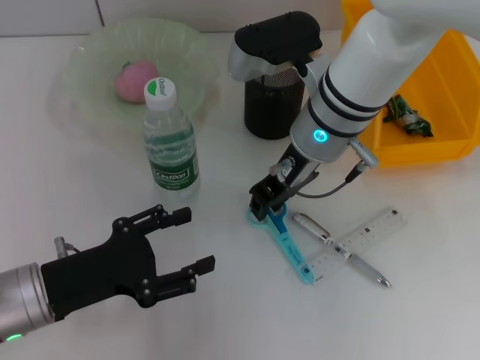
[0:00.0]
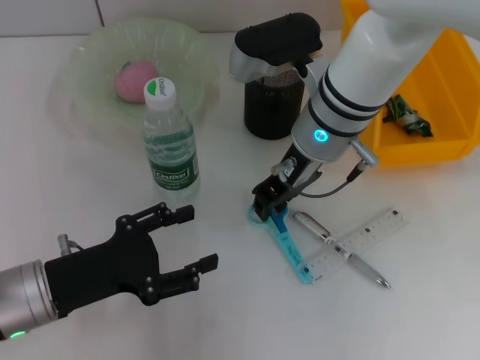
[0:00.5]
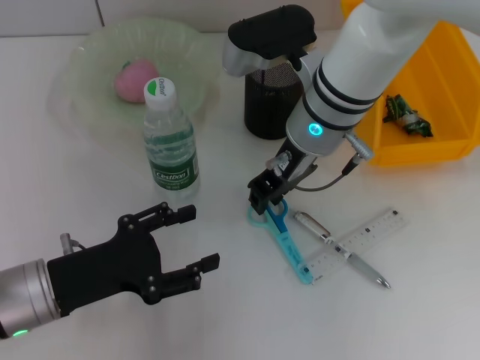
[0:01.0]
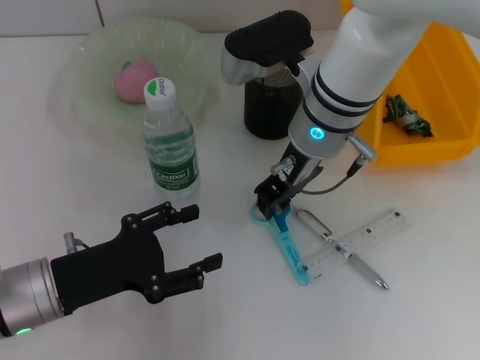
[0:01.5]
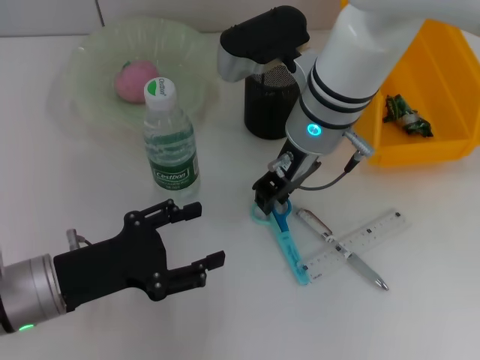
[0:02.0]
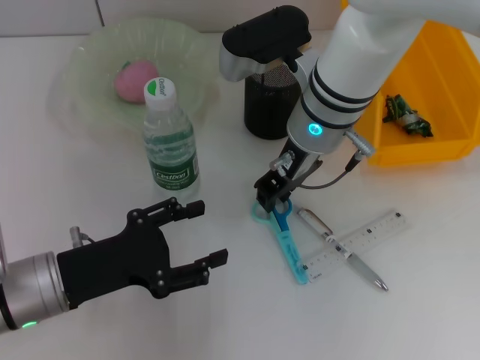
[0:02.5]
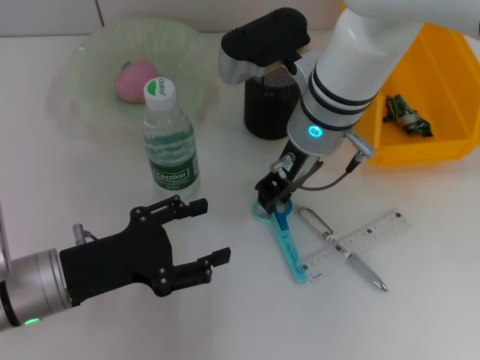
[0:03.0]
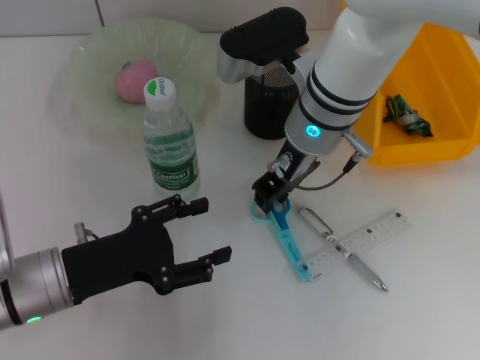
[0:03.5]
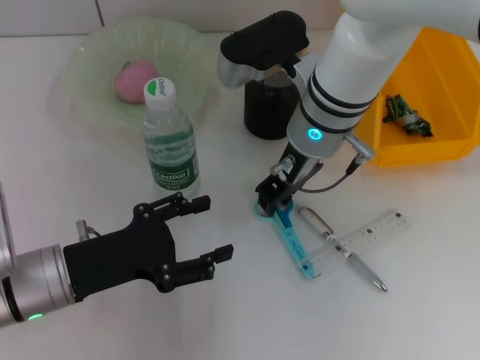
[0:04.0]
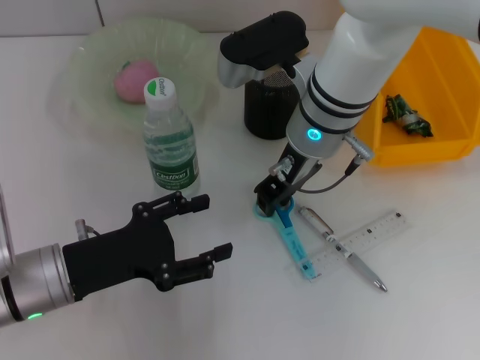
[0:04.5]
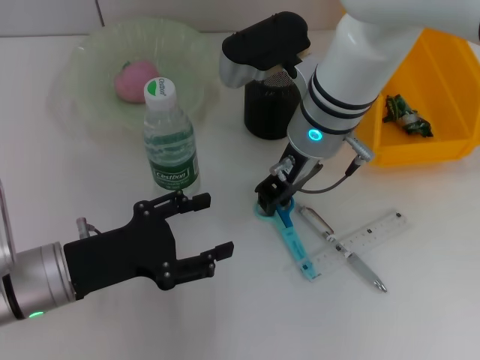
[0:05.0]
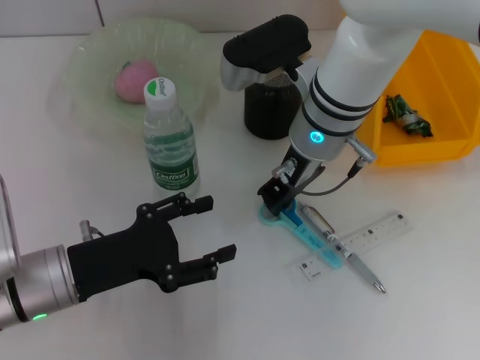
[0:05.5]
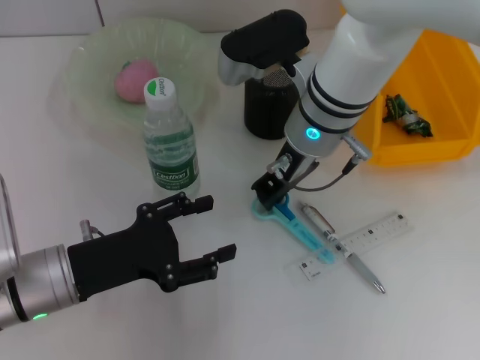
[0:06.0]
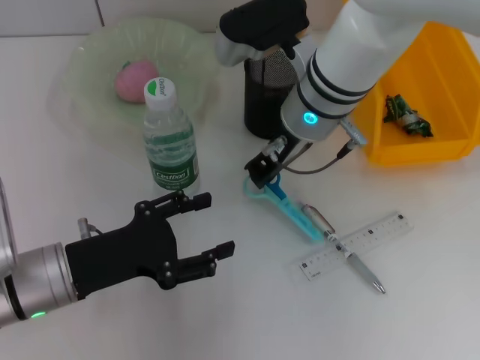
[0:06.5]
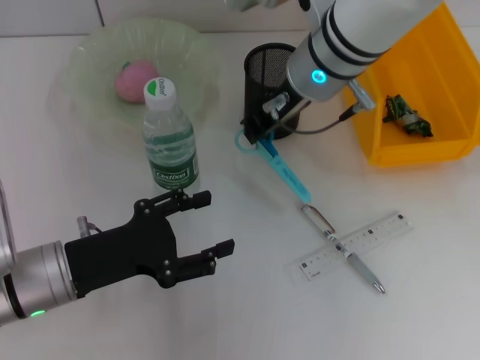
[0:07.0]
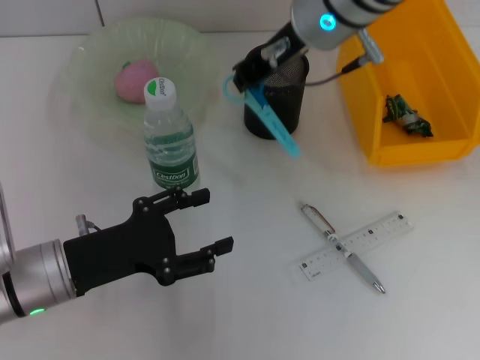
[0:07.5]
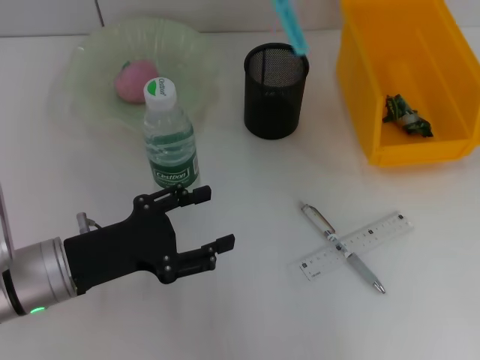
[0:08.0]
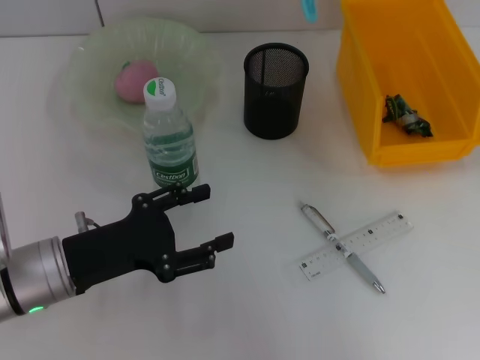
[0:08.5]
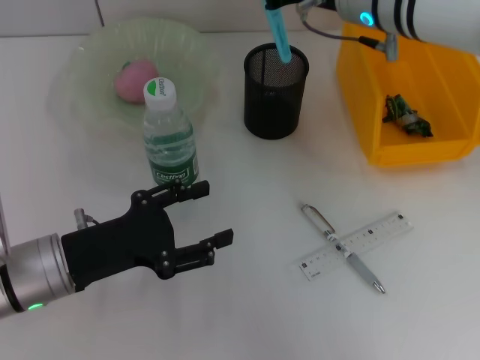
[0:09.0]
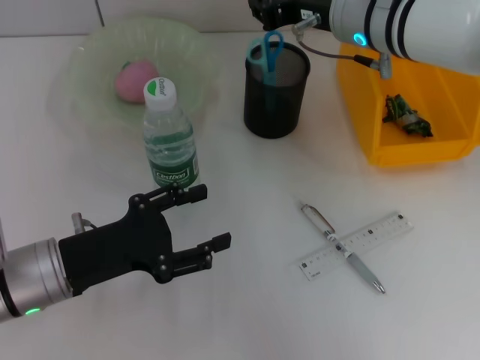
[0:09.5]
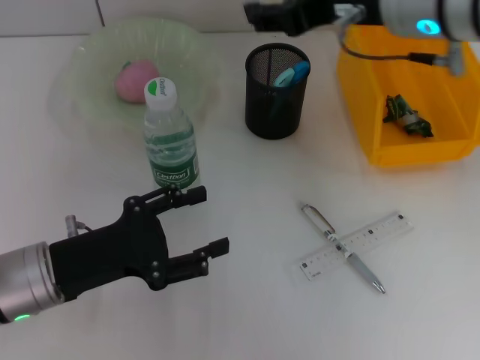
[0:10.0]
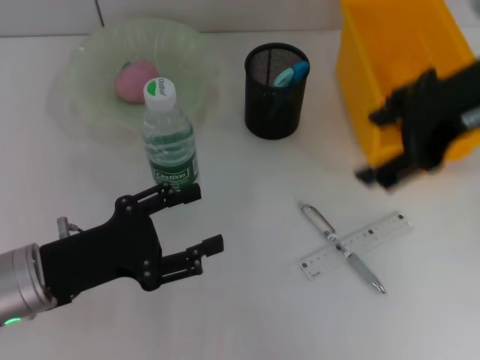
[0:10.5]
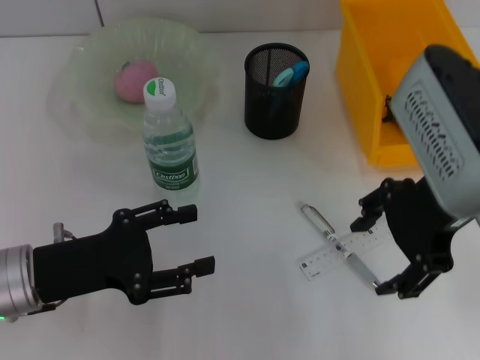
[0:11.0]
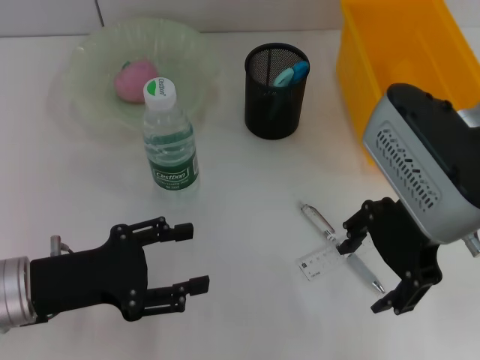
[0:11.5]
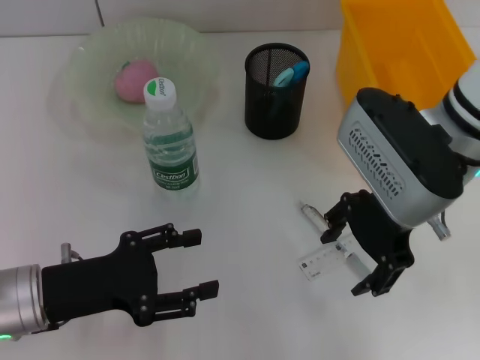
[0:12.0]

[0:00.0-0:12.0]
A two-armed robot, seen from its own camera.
Step, 0:00.0 to 0:05.5: Grab the blue utility knife with the right hand.
Step, 0:06.0 to 0:09.5: Place the blue utility knife into the pen holder with the right hand.
0:00.0 to 0:02.0: The grippers stay close to where they were, moving slightly.
0:02.0 to 0:06.0: Both grippers stay put.
0:06.0 to 0:08.0: The right gripper is displaced upward by roughly 15 cm.
0:08.0 to 0:10.0: The right gripper travels backward by about 5 cm, and opens up.
0:10.0 to 0:12.0: The right gripper travels downward by some 10 cm, and opens up.

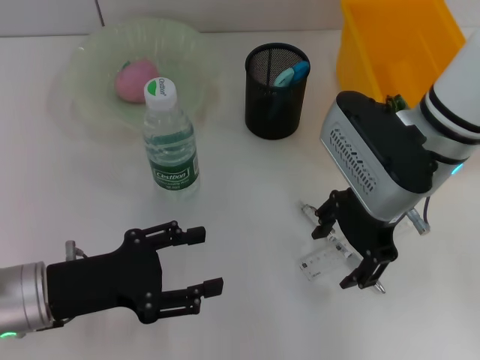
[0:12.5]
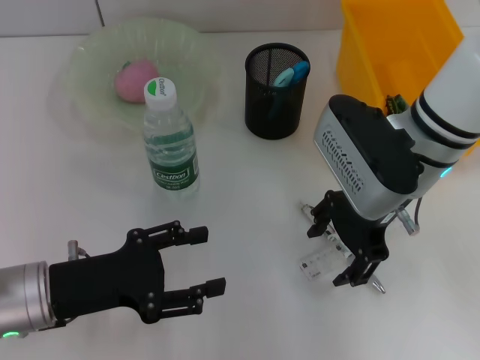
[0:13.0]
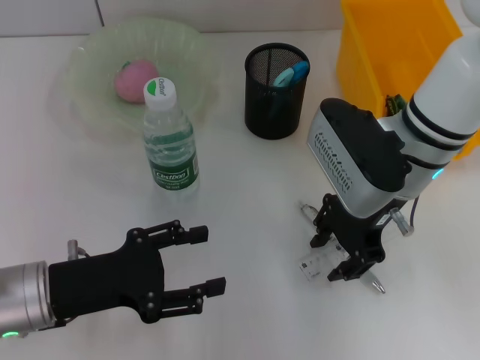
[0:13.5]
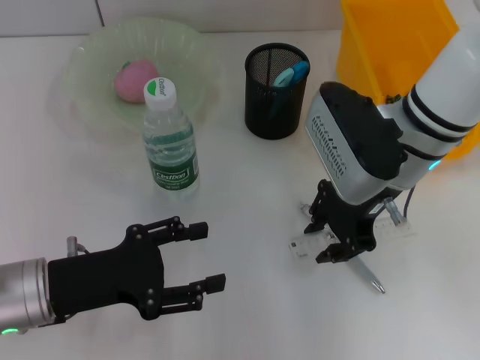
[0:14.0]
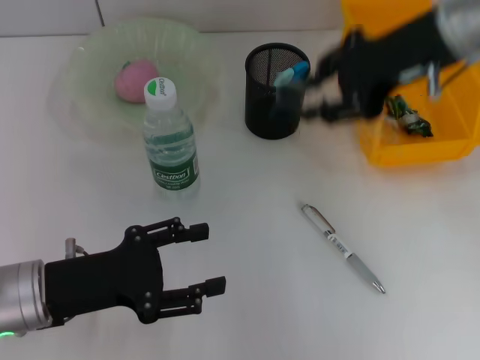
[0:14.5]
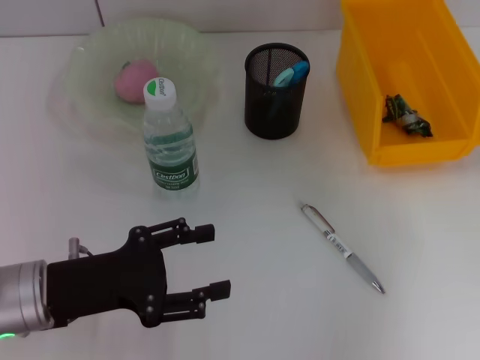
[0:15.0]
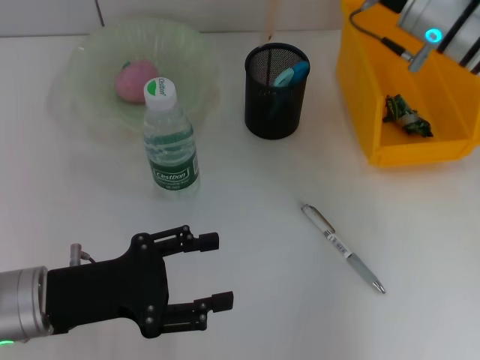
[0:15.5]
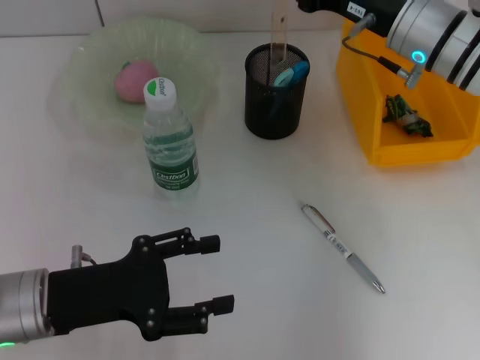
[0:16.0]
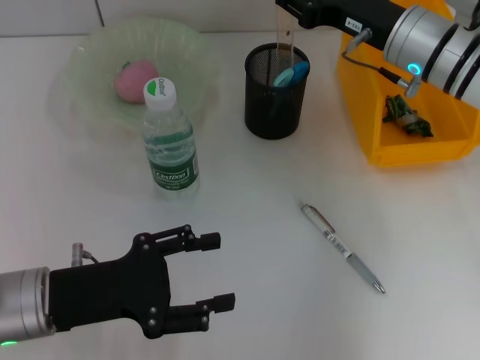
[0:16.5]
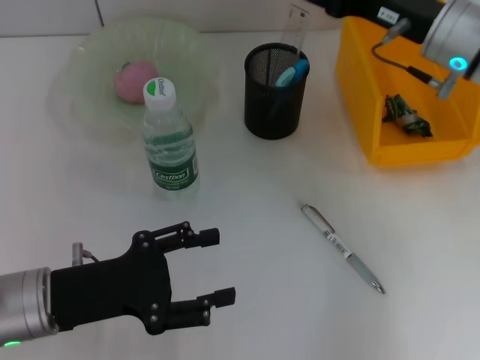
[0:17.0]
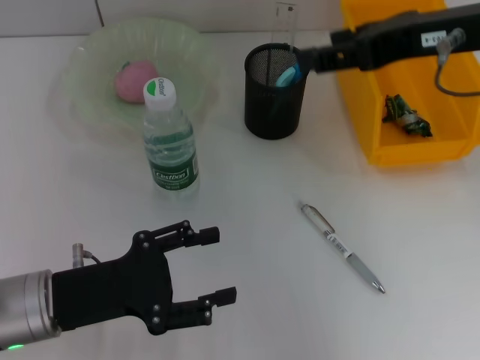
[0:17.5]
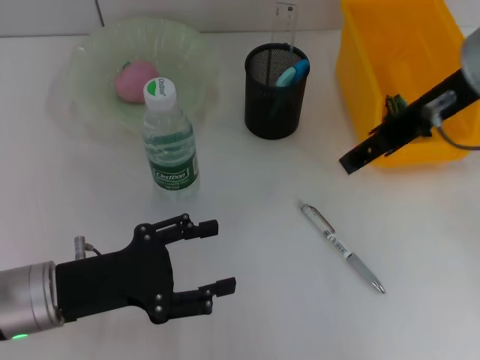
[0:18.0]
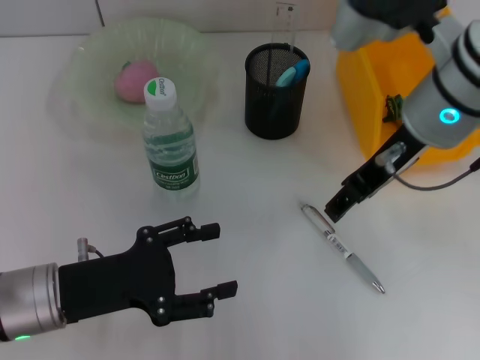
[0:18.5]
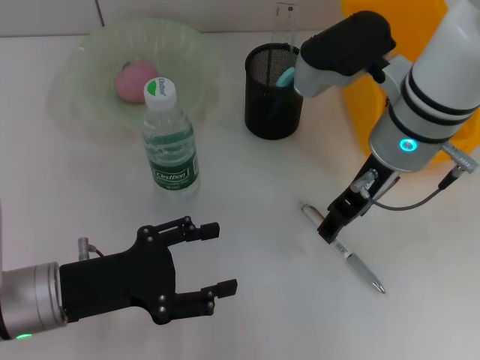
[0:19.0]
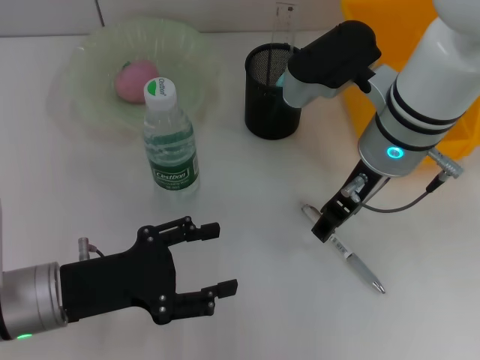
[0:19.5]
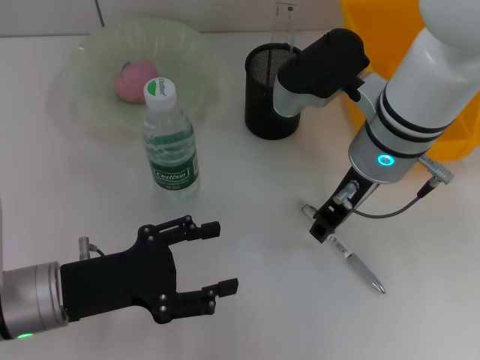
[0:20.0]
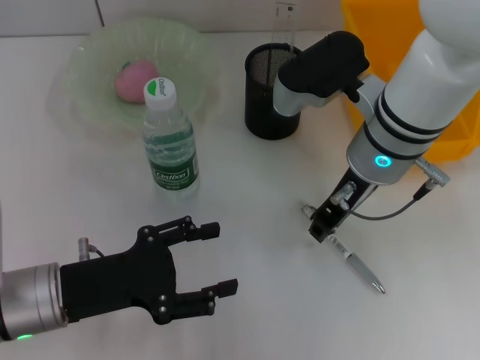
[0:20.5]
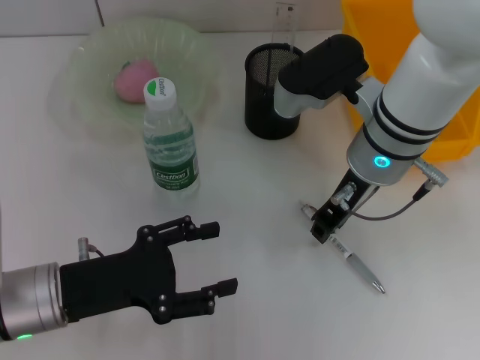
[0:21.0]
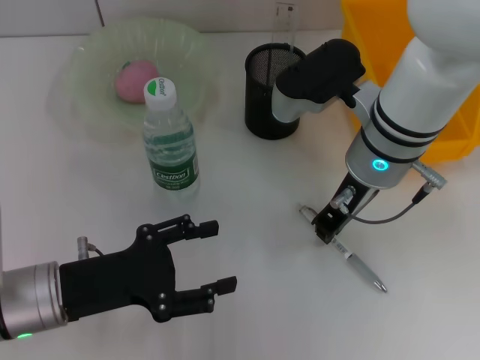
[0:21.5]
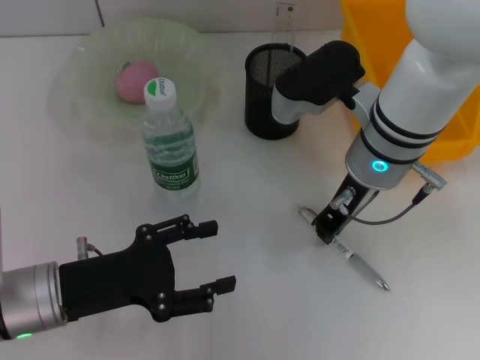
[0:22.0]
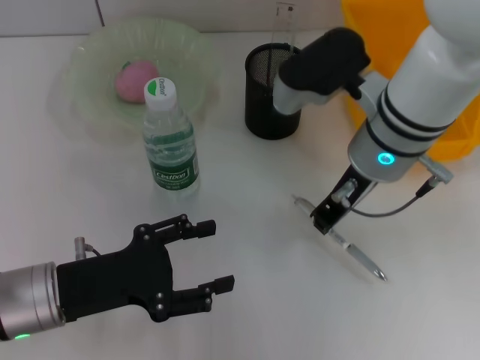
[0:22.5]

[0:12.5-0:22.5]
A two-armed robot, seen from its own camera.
Step, 0:14.0 to 0:16.5: Place the ruler into the pen holder with the right hand.
Step, 0:17.5 to 0:21.5: Grab the gray spring-action pen with the right hand.
0:12.5 to 0:14.5: The right gripper is displaced upward by approximately 10 cm, and closes.
0:14.5 to 0:16.5: The right gripper heads downward, covering roughly 10 cm.
0:16.5 to 0:18.5: The right gripper goes about 10 cm upward and backward, and opens.
0:18.5 to 0:20.5: The right gripper heads downward, covering about 5 cm, and closes up.
0:20.5 to 0:22.5: Both grippers stay about where they are.

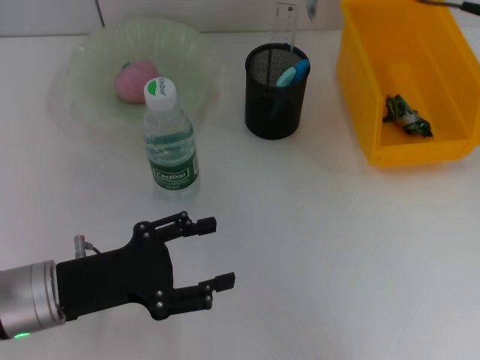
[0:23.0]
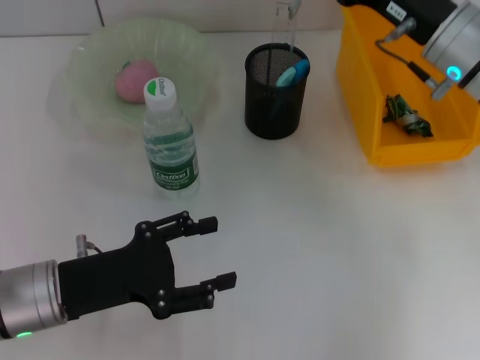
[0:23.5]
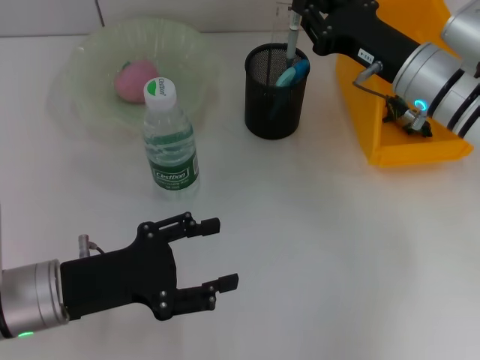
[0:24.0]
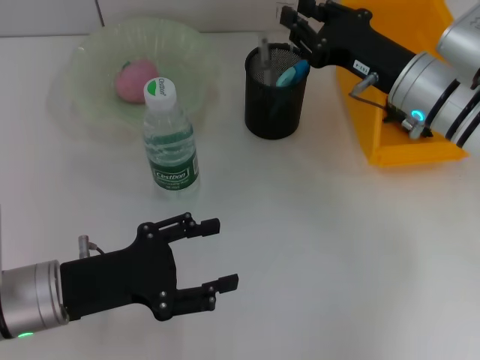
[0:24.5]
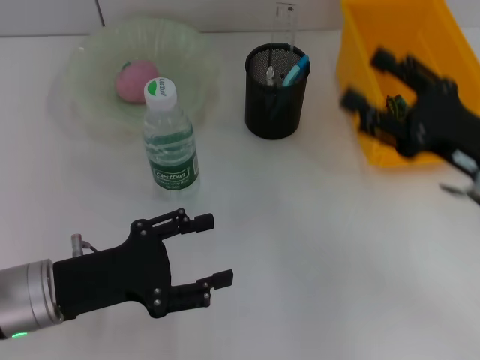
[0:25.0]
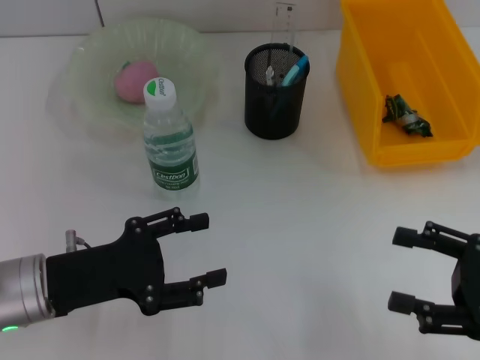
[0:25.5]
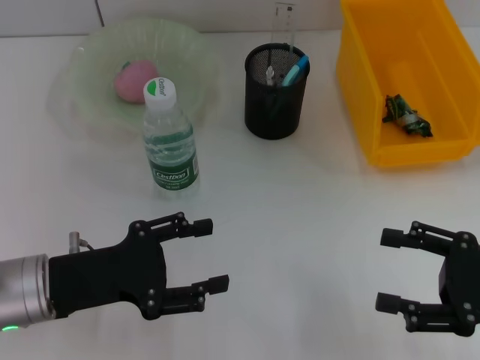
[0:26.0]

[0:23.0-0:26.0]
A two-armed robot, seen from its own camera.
Step, 0:23.0 to 0:24.5: Place the gray spring-action pen into the pen holder with the right hand.
0:23.0 to 0:24.5: The right gripper shifts about 20 cm downward.
0:24.5 to 0:26.0: The right gripper is displaced backward and to the right by some 20 cm, and opens up.
